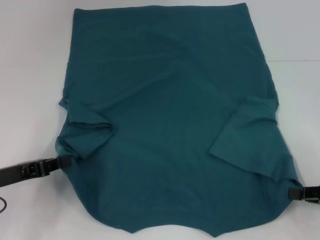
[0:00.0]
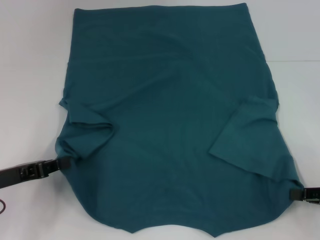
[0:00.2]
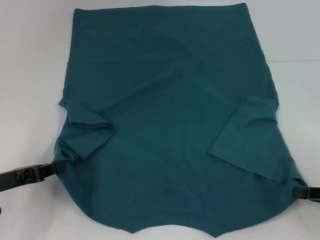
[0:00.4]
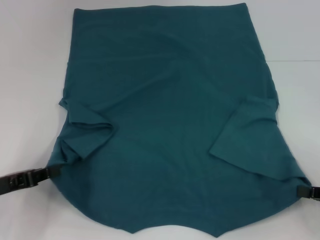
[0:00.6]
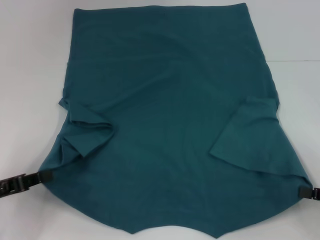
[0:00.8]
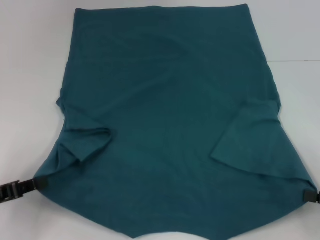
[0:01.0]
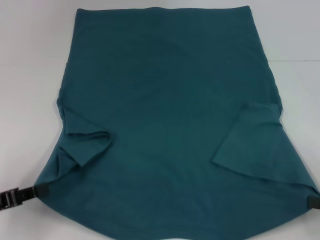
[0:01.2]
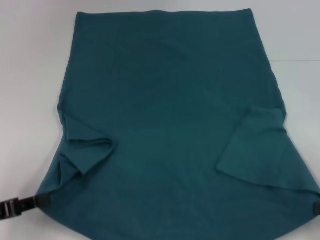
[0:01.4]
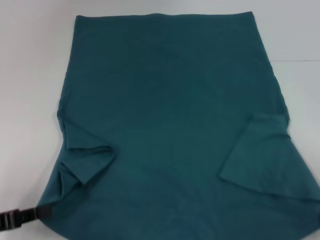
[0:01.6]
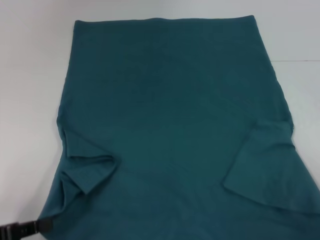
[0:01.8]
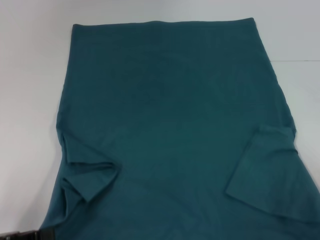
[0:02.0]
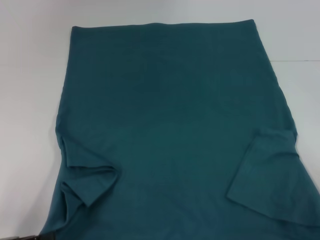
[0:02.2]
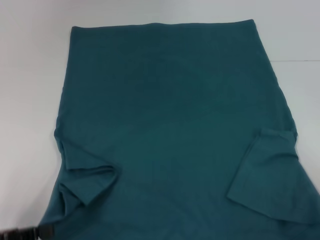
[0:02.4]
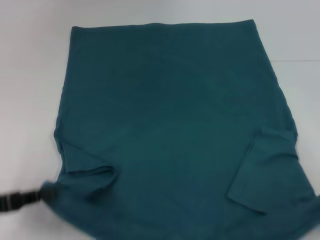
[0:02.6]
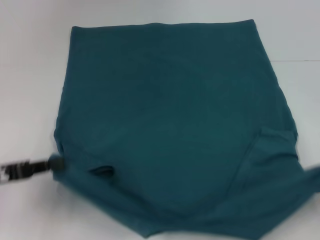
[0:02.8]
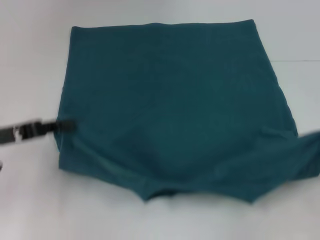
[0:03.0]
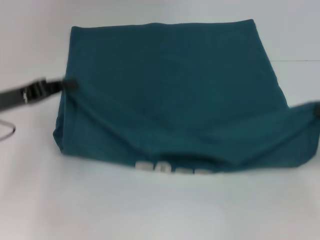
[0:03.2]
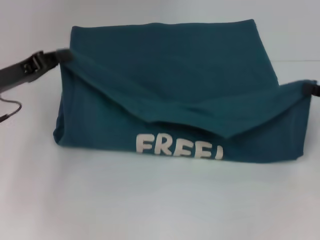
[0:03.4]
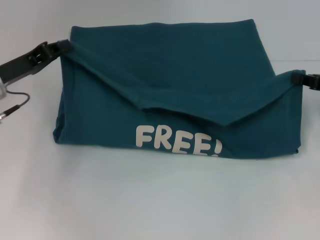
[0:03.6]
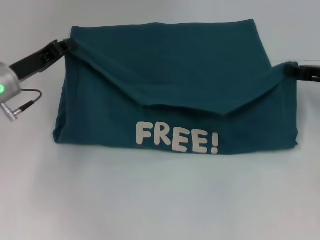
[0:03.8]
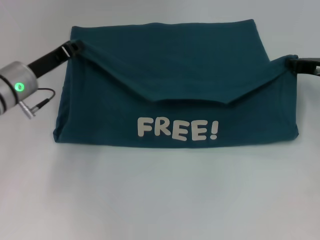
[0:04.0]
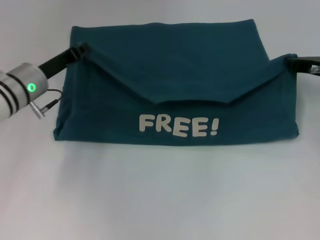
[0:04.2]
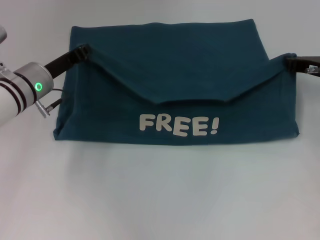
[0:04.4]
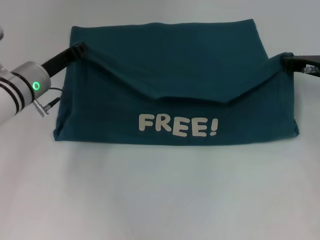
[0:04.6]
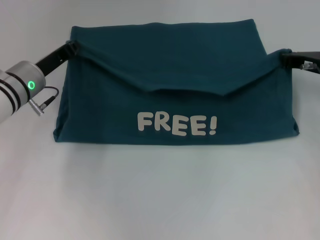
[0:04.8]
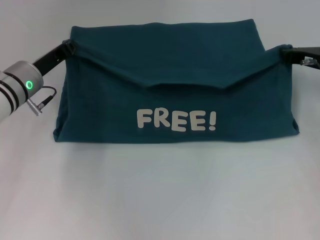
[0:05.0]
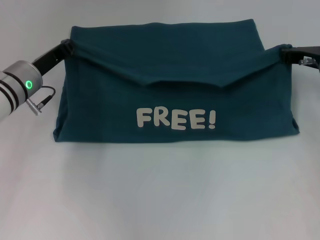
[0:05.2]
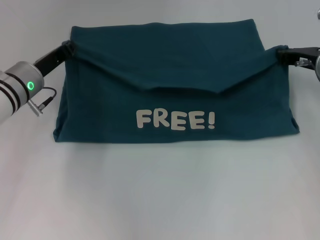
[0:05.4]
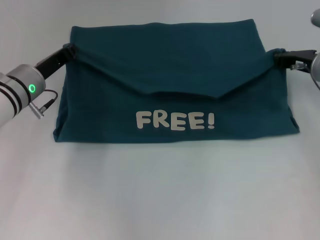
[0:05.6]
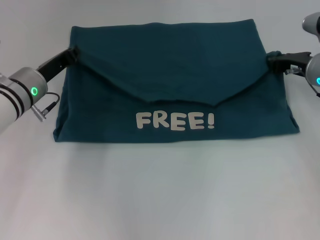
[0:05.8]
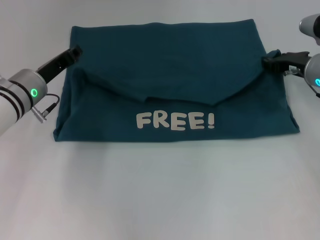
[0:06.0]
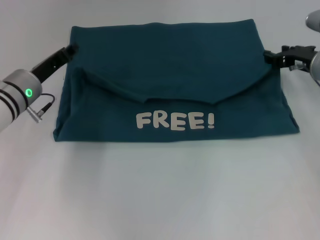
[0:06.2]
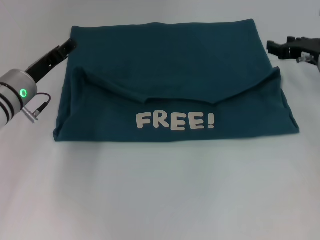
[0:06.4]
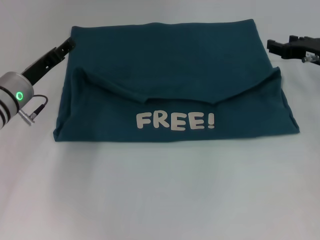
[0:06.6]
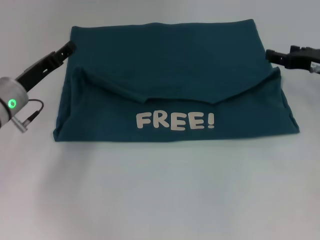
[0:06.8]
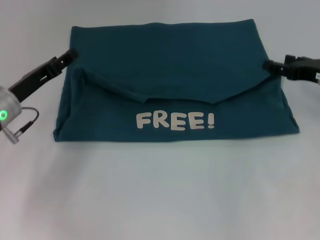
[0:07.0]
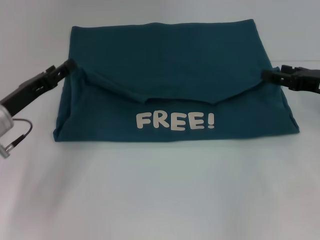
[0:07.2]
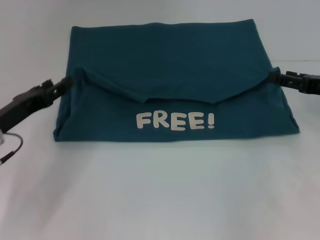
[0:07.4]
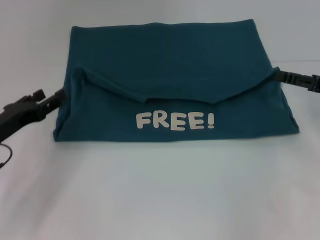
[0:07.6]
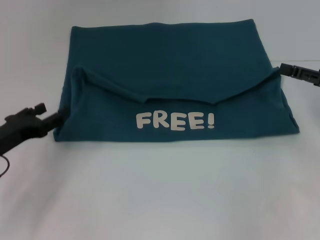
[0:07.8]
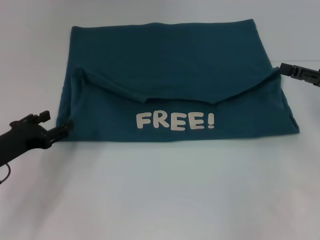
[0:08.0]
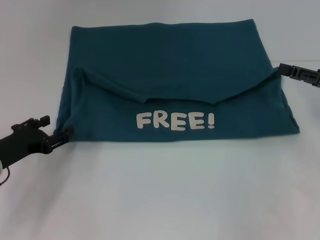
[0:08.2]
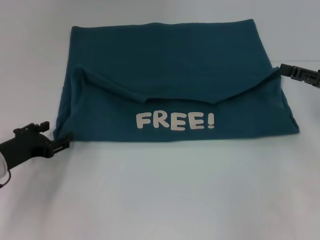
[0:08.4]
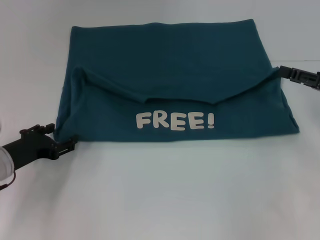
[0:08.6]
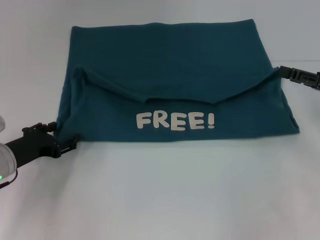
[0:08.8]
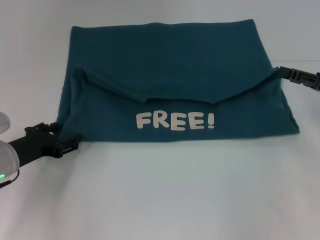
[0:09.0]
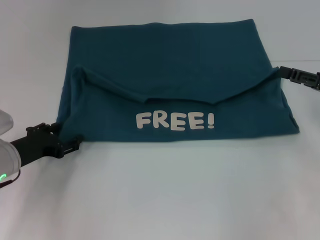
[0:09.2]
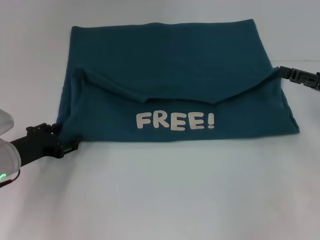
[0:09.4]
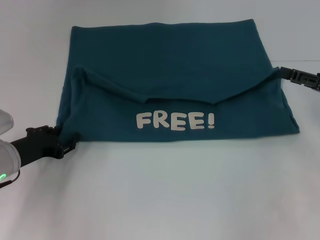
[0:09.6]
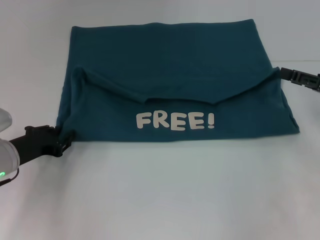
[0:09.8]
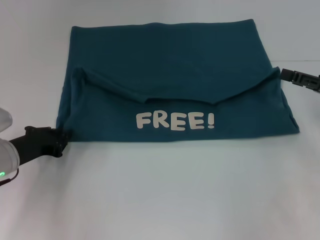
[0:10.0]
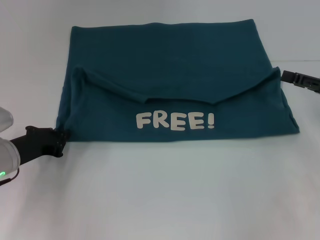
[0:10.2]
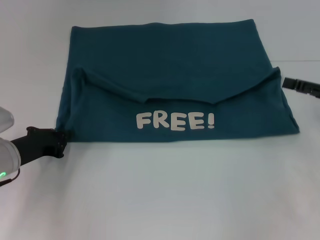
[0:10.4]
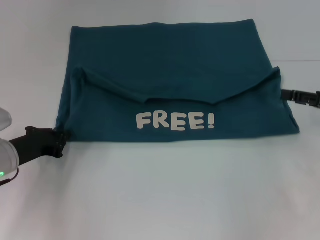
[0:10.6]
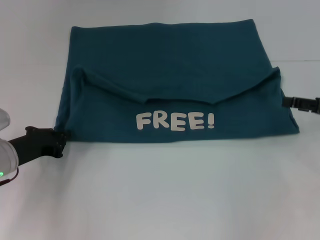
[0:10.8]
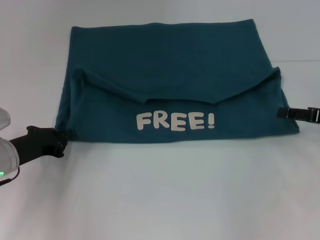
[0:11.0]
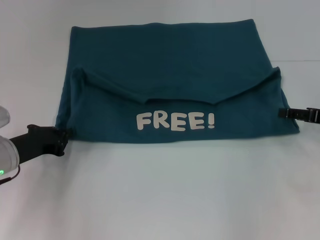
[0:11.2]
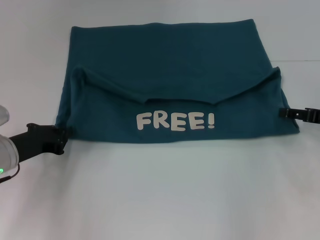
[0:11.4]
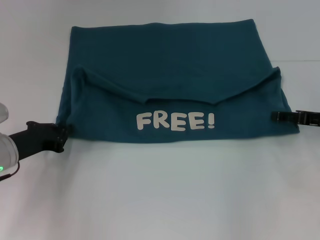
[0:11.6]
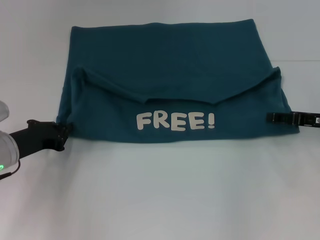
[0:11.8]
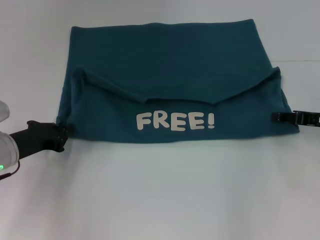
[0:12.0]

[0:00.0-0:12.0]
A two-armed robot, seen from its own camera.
Step, 0:00.4 to 0:06.2: Fold the clothes to the left.
Step, 0:00.4 to 0:06.2: Fold the clothes to the right.
0:00.0 to 0:01.6: The two grippers go approximately 5 cm backward.
0:01.6 to 0:03.0: The right gripper moves forward, approximately 5 cm, while the left gripper travels forward and upward by roughly 10 cm.
0:03.0 to 0:04.4: The left gripper heads forward and to the right, covering approximately 15 cm; the right gripper travels forward and to the left by about 20 cm.
0:04.4 to 0:06.0: The grippers make only small movements.
0:06.0 to 0:07.6: The left gripper moves backward and to the left, about 10 cm, and opens up. Meanwhile the right gripper heads backward and to the right, covering approximately 10 cm, and opens up.
0:09.0 to 0:10.4: The left gripper closes its fingers.
0:10.4 to 0:12.0: The right gripper shifts by roughly 5 cm.

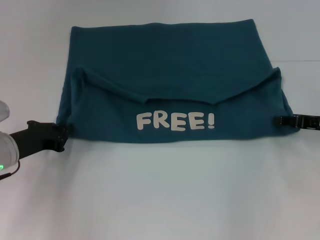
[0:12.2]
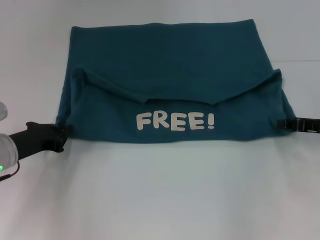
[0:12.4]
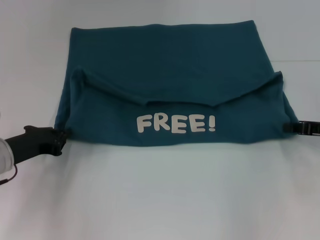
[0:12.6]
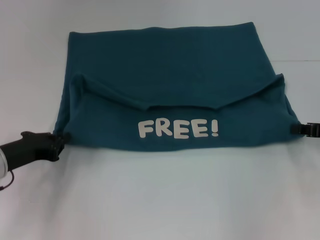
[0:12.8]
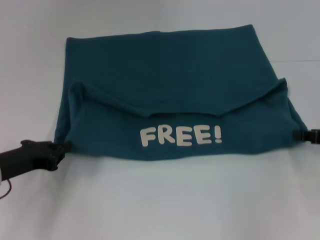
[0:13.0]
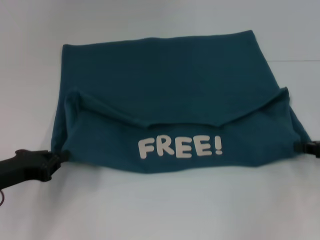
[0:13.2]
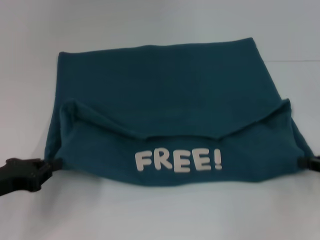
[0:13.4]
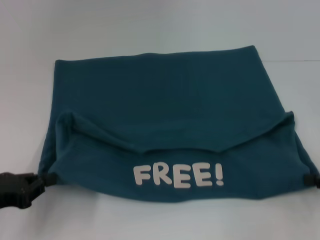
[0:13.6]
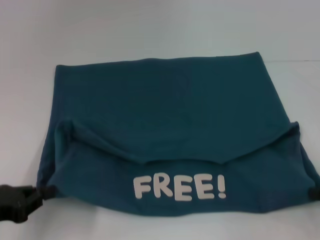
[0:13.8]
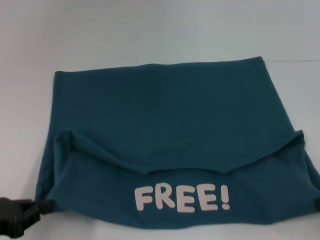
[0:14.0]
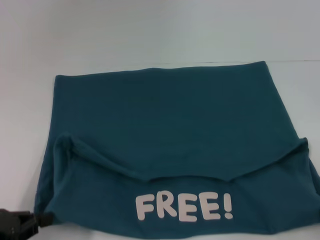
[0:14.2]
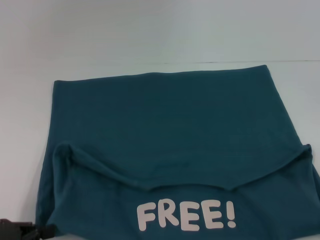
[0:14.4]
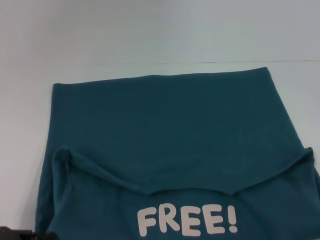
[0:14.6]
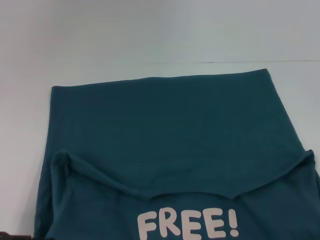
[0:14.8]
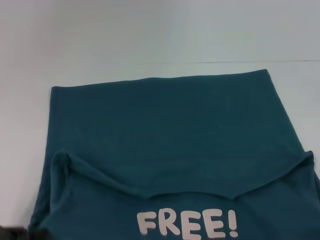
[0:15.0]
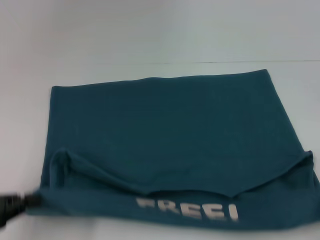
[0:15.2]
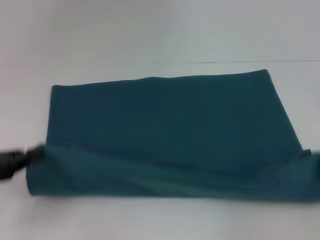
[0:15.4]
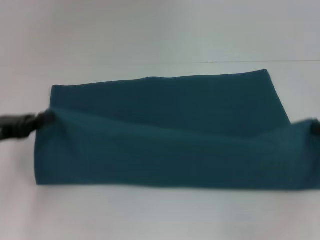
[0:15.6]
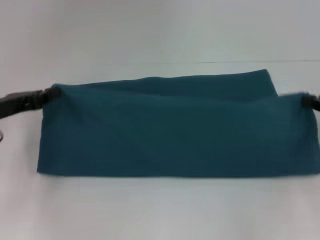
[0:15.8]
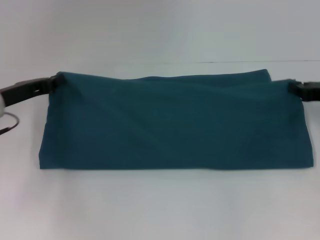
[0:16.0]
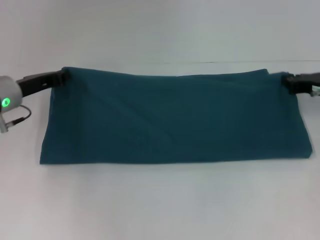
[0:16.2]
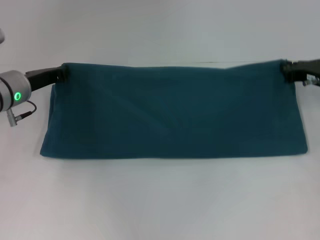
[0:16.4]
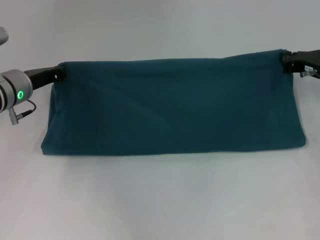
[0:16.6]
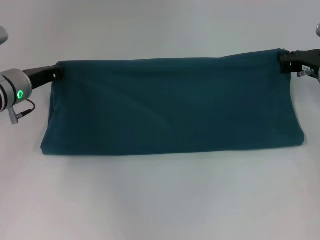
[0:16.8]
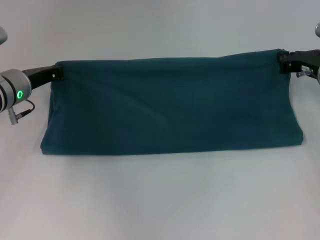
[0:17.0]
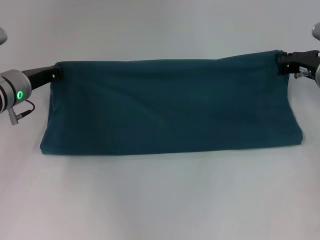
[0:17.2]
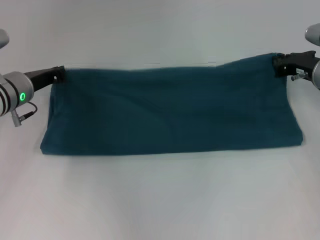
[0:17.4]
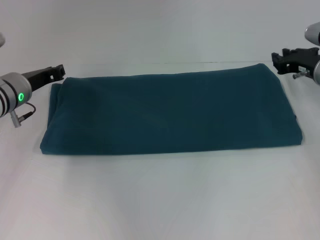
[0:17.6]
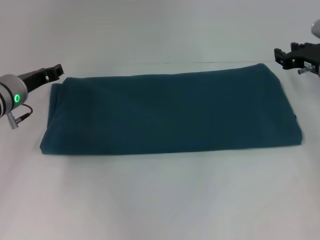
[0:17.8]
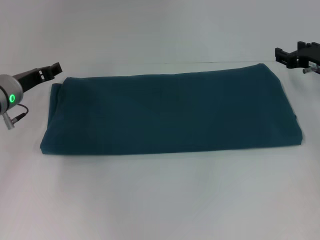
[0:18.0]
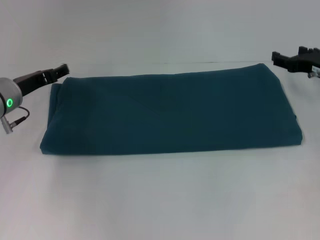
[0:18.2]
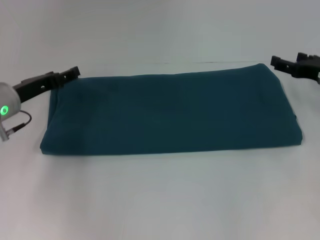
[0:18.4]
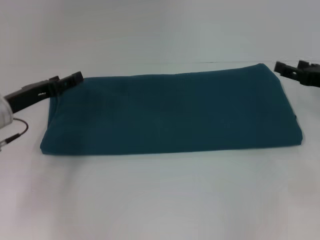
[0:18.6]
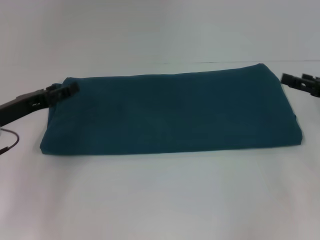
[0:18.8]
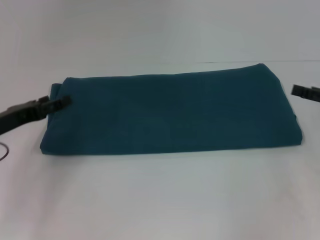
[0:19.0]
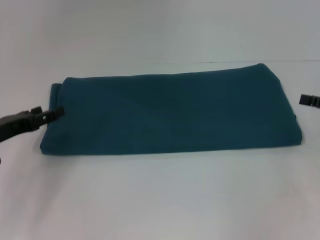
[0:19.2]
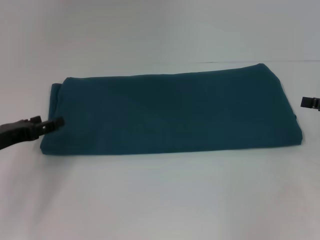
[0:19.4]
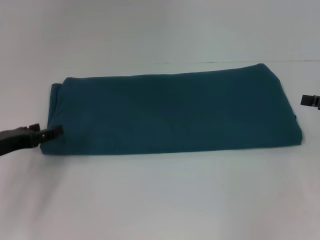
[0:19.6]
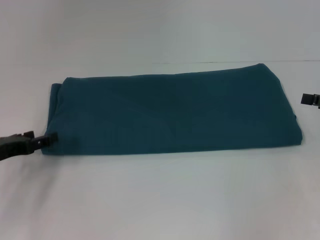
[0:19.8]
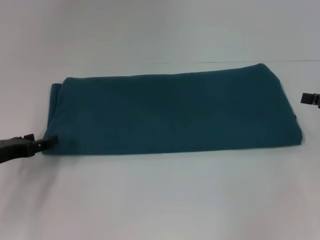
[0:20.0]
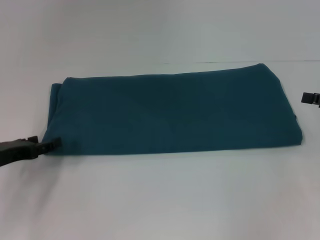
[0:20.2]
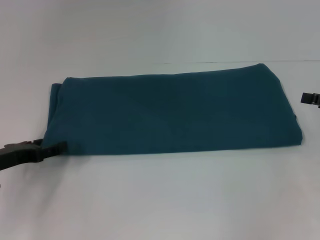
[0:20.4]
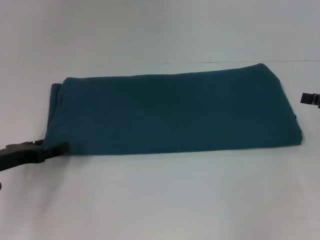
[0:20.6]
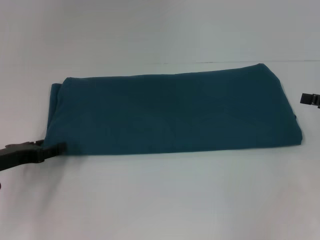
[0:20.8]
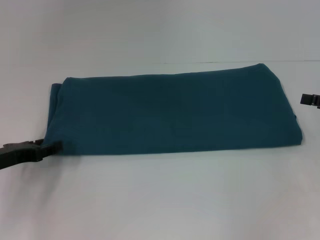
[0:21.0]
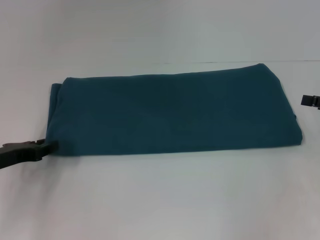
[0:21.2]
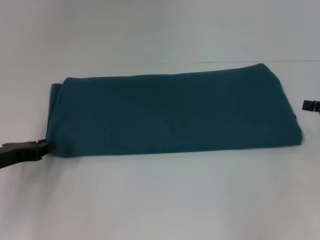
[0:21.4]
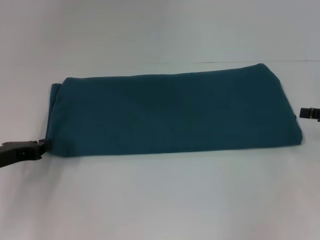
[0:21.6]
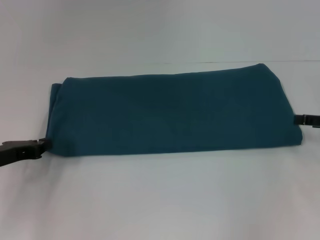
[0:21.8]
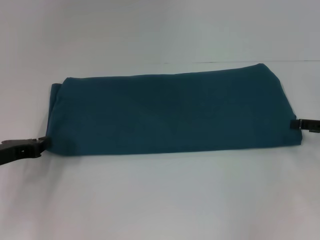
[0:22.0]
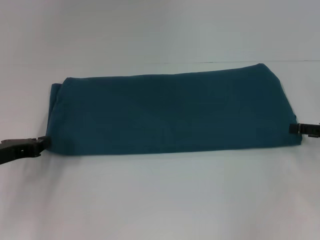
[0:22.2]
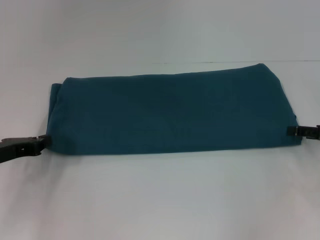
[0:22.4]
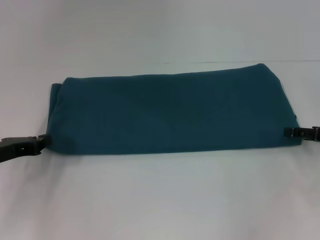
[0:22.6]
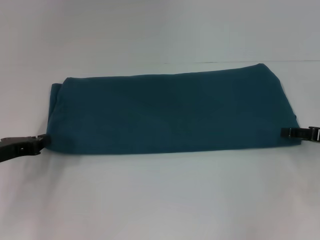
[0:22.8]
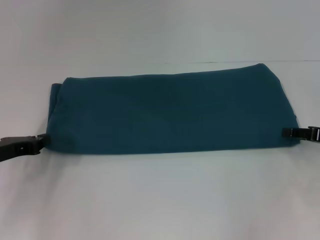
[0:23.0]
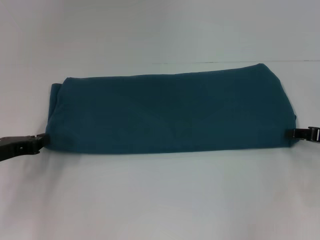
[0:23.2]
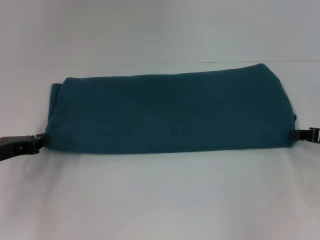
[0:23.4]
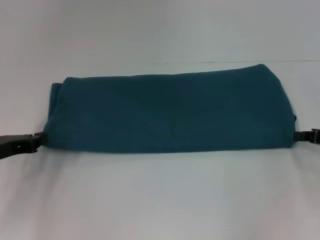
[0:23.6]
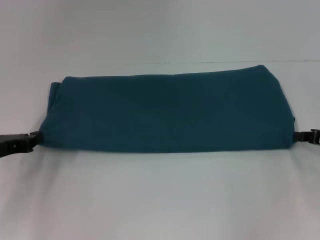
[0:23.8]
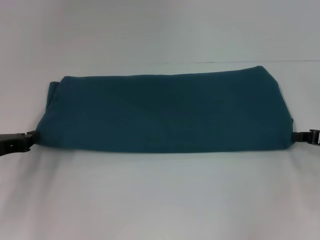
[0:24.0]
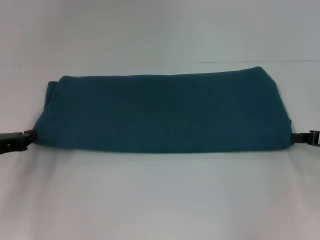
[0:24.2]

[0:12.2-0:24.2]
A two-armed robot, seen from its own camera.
Step, 0:12.2 to 0:14.4: Pull the clothes with your left hand.
Step, 0:12.2 to 0:14.4: Pull the clothes with your right hand.
Step, 0:14.6 to 0:17.6: Fold the clothes to the right.
0:12.2 to 0:13.8: Both grippers travel together backward, some 10 cm. The right gripper closes up.
0:15.2 to 0:16.6: The left gripper travels forward and to the right by roughly 25 cm. The right gripper is displaced forward and to the left by roughly 25 cm.
0:16.6 to 0:18.2: The left gripper opens. The right gripper opens.
0:18.2 to 0:19.8: The right gripper is displaced backward and to the right by about 10 cm. The left gripper goes some 10 cm backward and to the left.
0:19.8 to 0:21.2: The left gripper closes.
0:21.2 to 0:22.6: The left gripper closes its fingers.
0:22.6 to 0:24.2: The right gripper closes.
